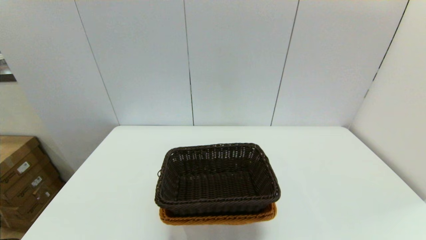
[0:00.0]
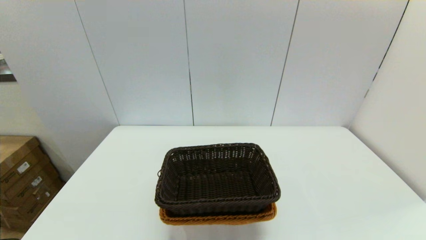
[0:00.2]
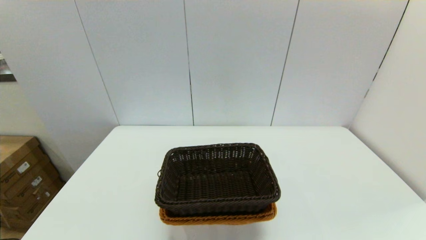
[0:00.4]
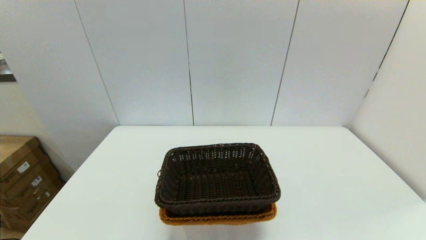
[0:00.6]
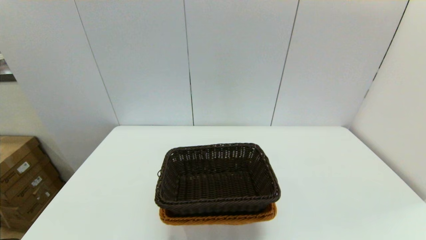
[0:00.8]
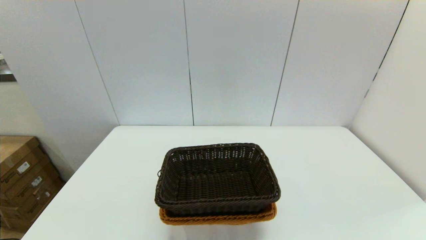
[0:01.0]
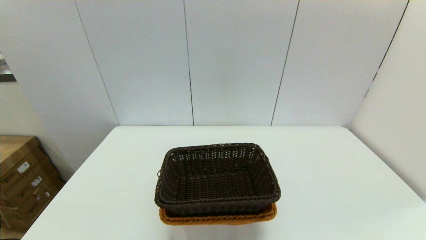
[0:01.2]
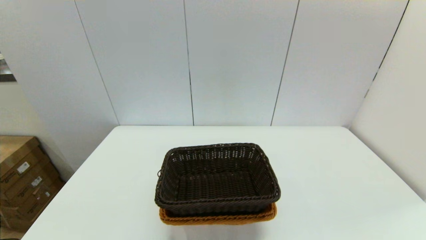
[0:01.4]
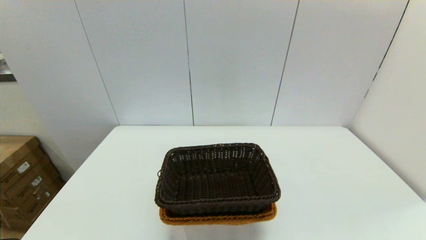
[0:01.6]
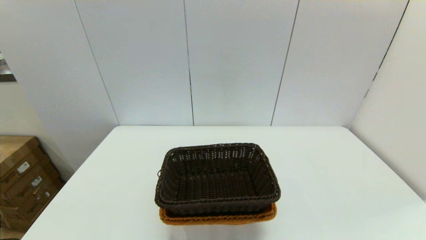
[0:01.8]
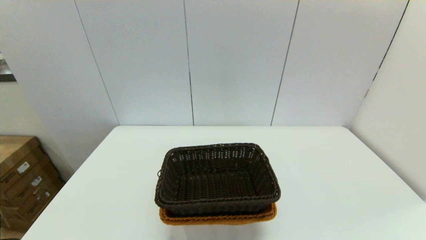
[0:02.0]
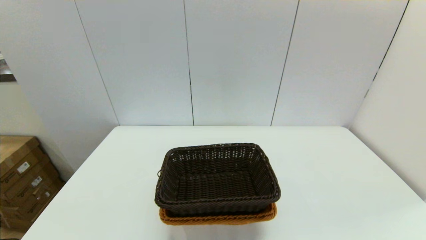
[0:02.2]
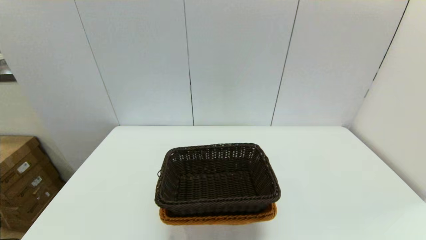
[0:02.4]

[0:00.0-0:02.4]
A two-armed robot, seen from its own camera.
Task of the whole recording: stack a basket on top of another basket.
0:01.2 to 0:02.4: Both grippers stay put.
